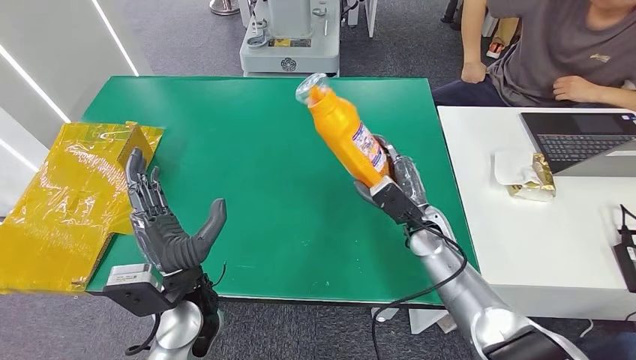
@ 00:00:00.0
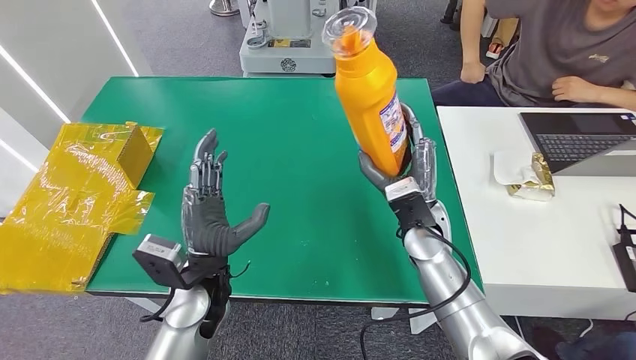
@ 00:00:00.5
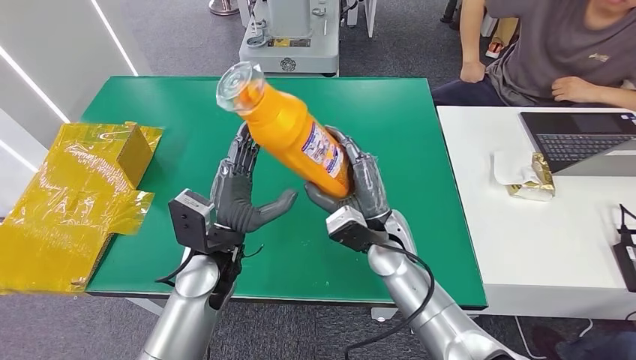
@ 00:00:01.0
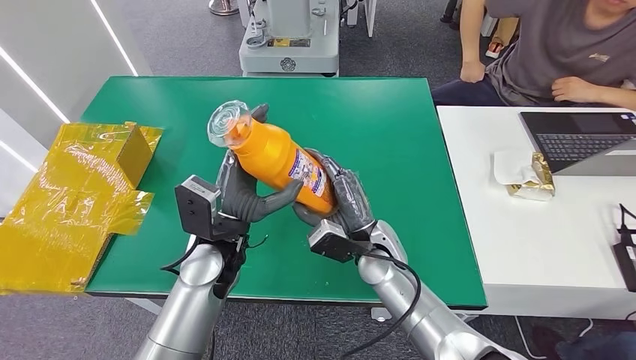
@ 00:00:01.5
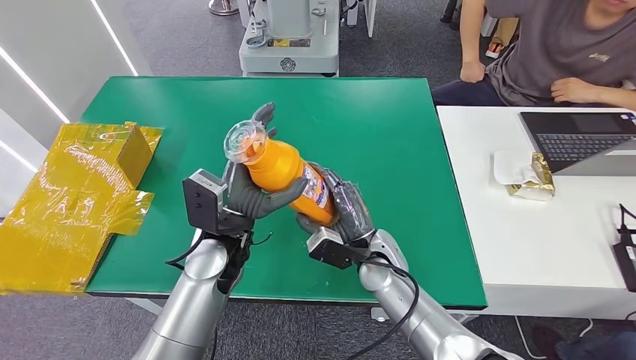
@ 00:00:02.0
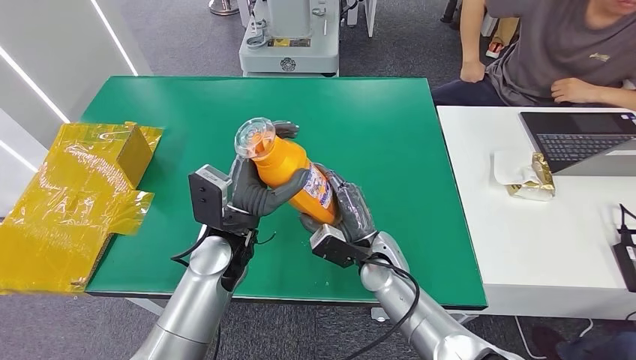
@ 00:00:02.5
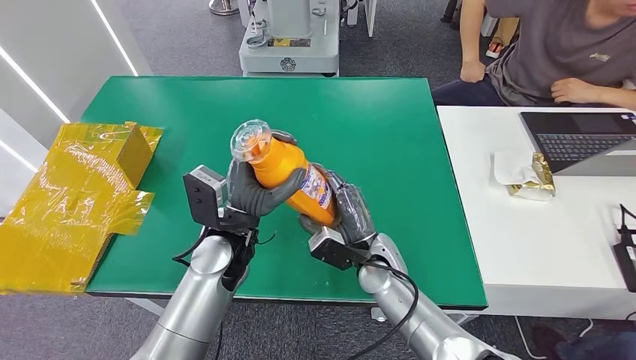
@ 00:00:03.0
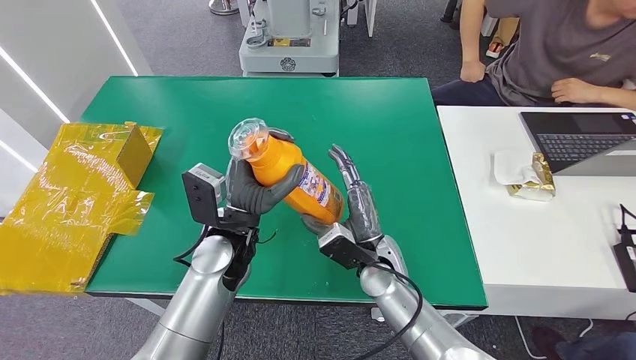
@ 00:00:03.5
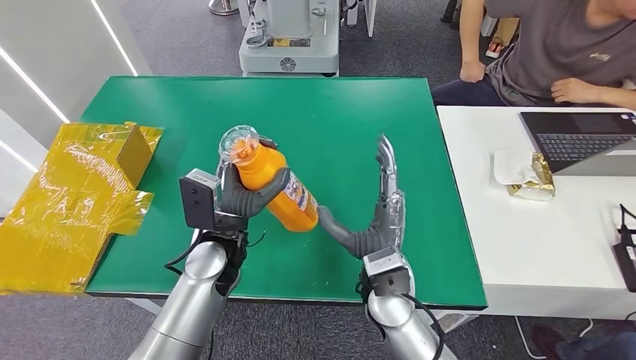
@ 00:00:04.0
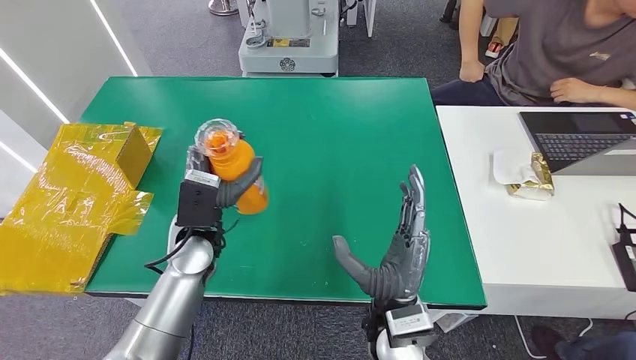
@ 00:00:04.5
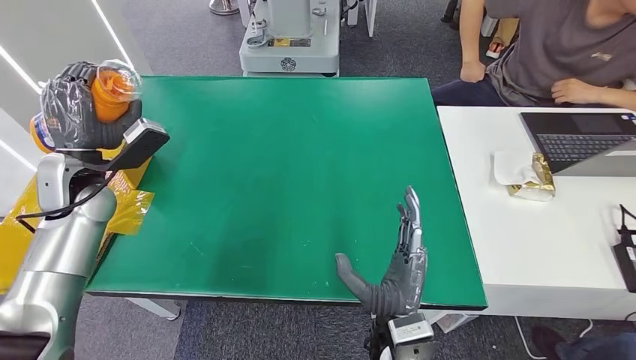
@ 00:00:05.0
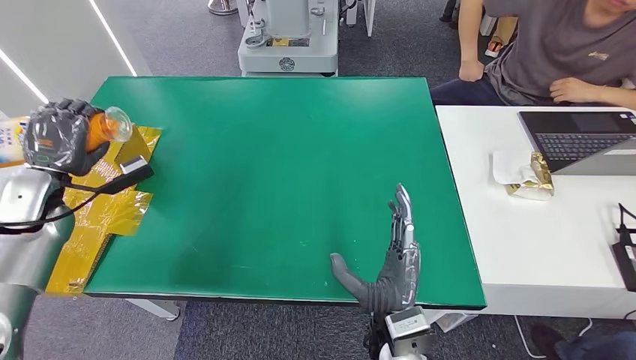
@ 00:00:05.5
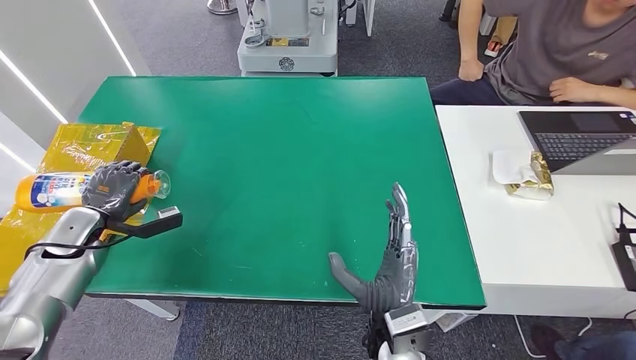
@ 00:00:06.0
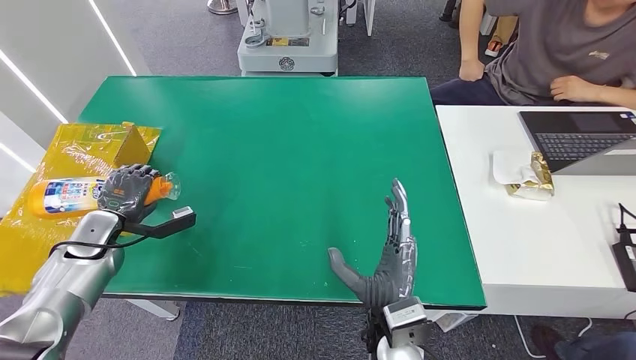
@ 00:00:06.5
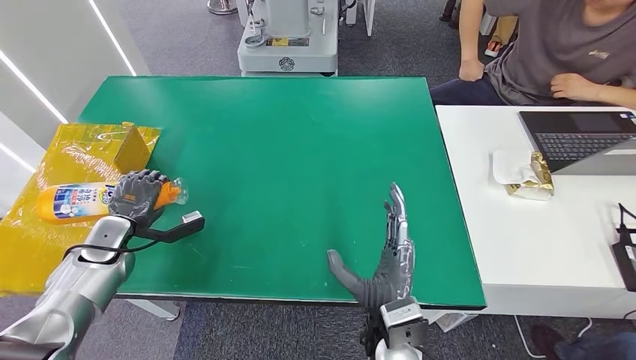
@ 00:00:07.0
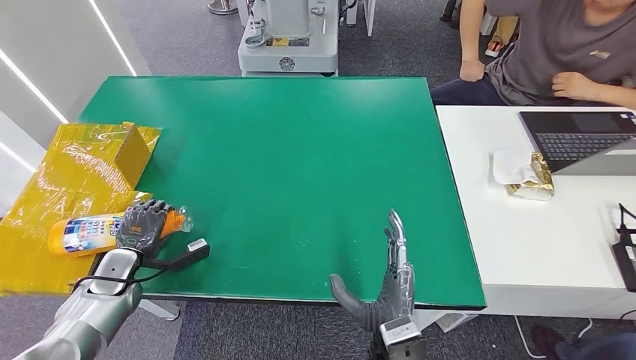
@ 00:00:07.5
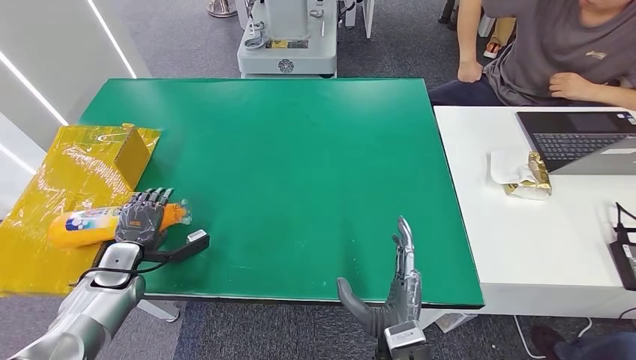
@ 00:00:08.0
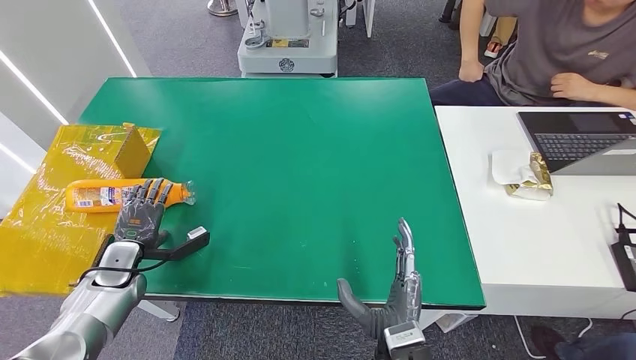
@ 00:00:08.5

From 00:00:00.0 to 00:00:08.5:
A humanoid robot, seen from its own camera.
Step, from 00:00:01.5 to 00:00:08.5: Turn the bottle to the front side.
From 00:00:02.0 to 00:00:04.0: The right hand travels backward by some 5 cm.
From 00:00:04.0 to 00:00:06.5: The right hand moves backward, some 5 cm. Meanwhile the left hand shifts roughly 30 cm to the left.
From 00:00:06.5 to 00:00:08.5: The right hand moves backward, roughly 5 cm, while the left hand heads downward, covering about 5 cm.

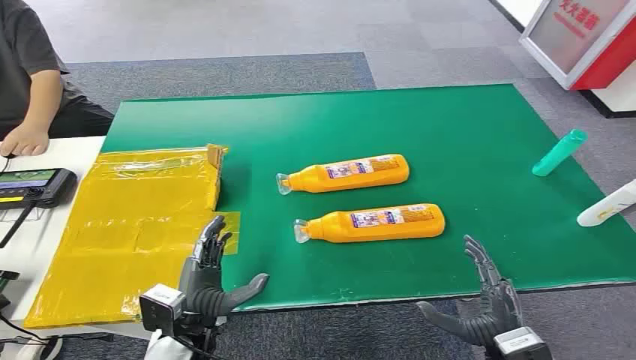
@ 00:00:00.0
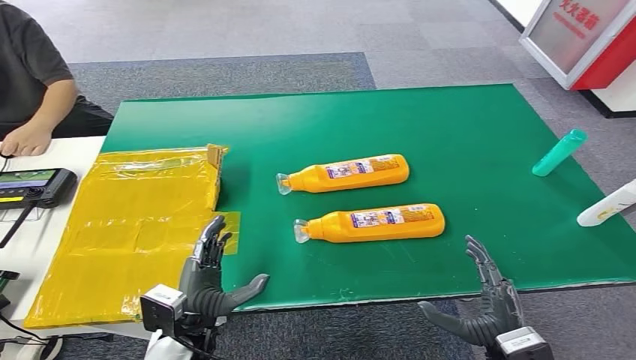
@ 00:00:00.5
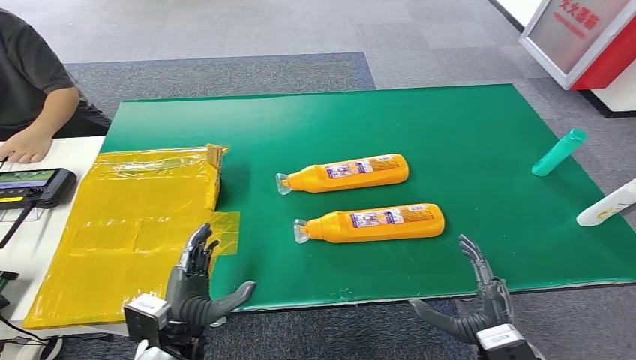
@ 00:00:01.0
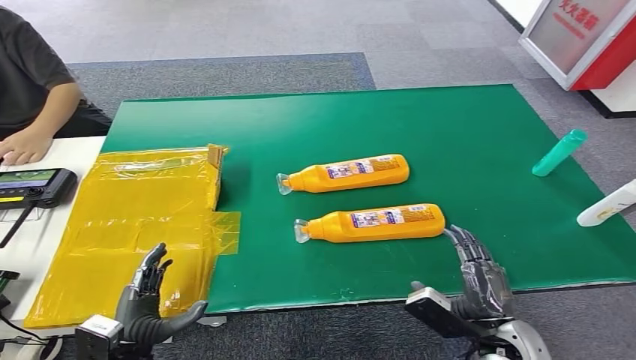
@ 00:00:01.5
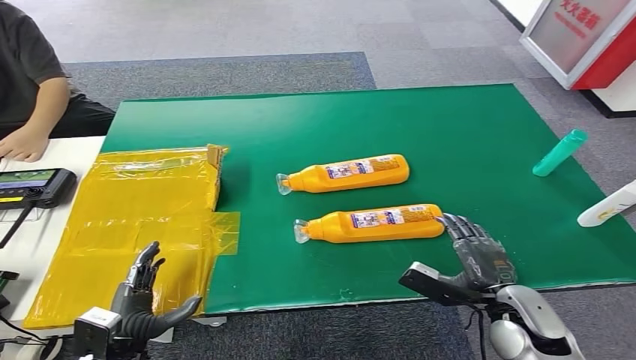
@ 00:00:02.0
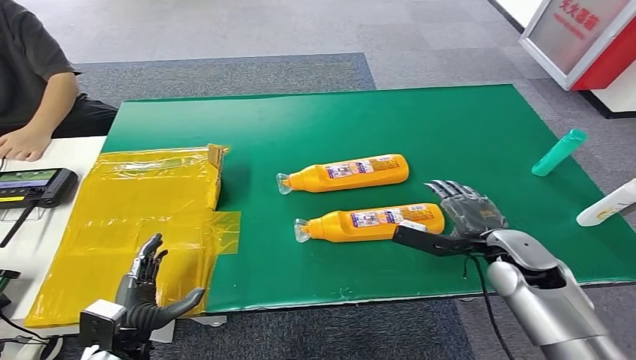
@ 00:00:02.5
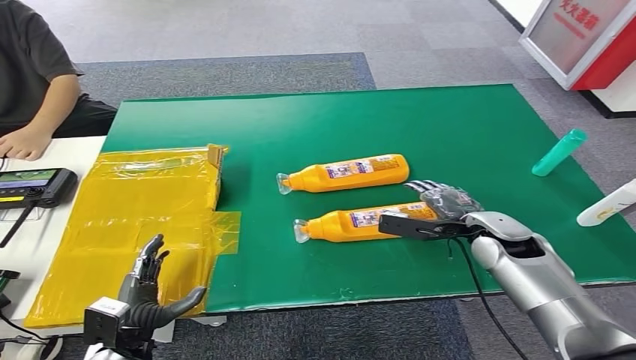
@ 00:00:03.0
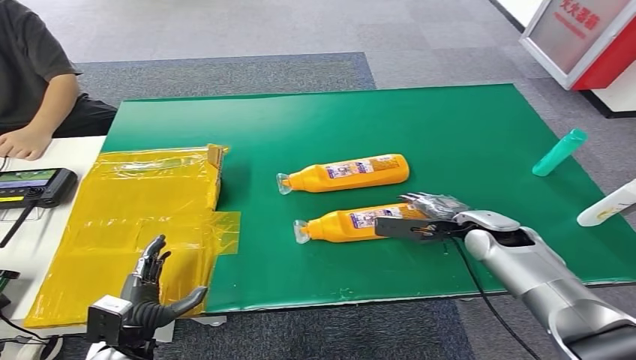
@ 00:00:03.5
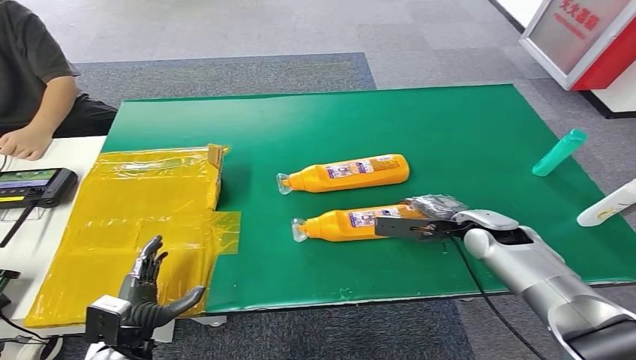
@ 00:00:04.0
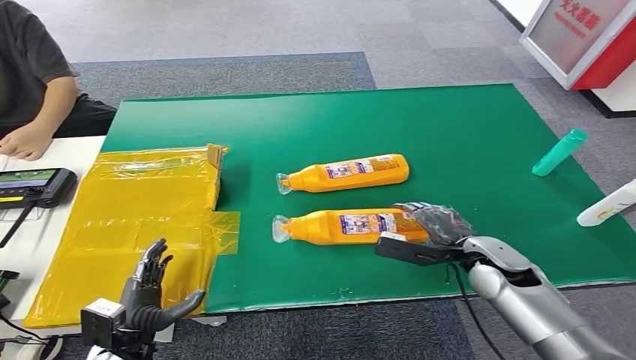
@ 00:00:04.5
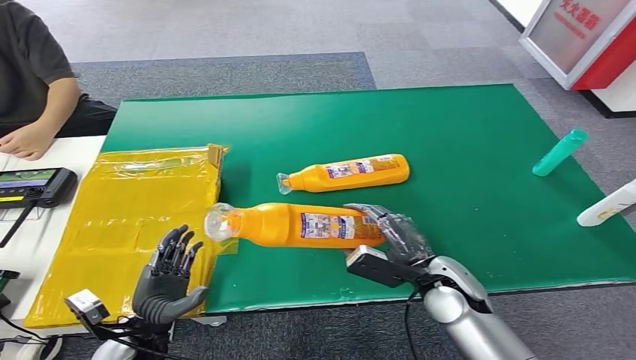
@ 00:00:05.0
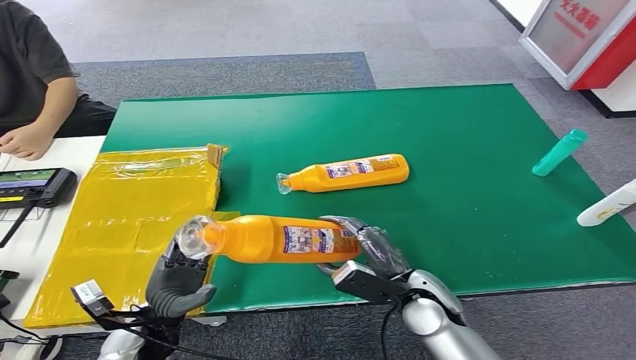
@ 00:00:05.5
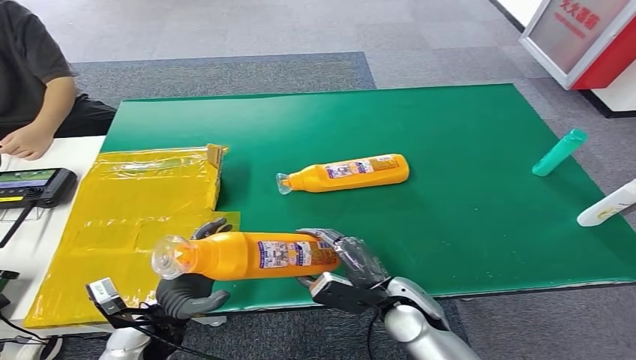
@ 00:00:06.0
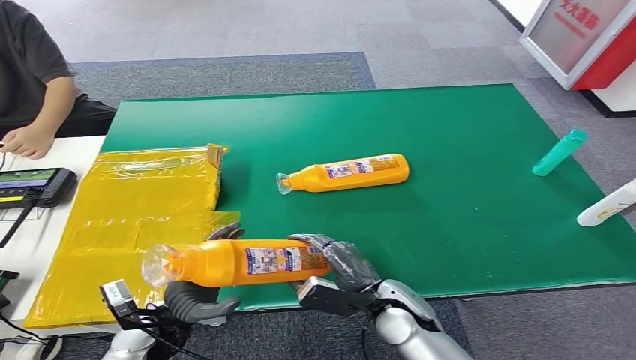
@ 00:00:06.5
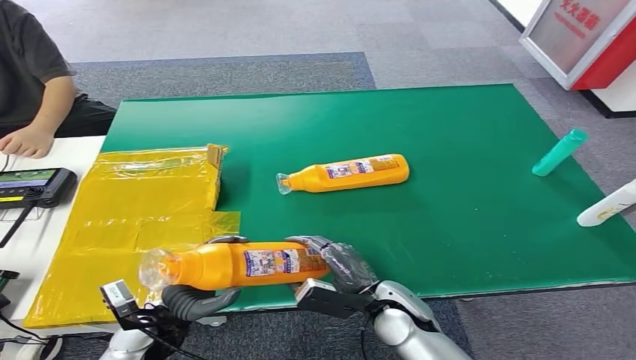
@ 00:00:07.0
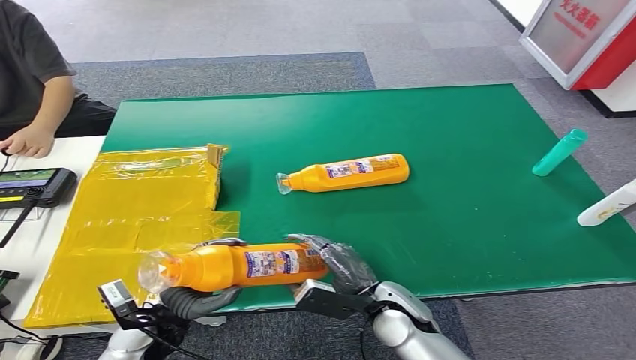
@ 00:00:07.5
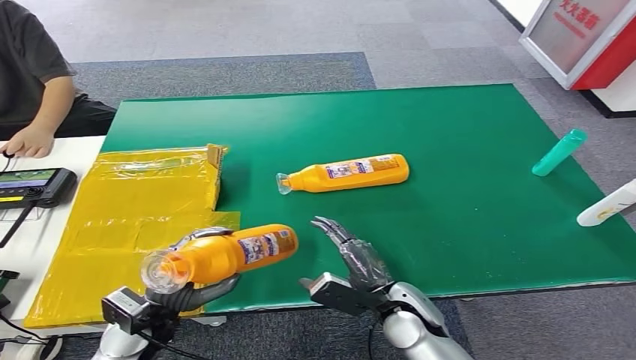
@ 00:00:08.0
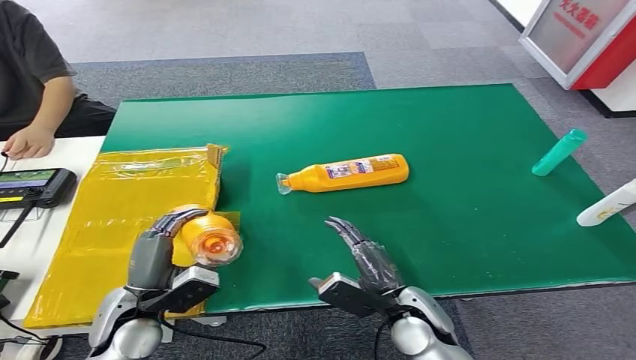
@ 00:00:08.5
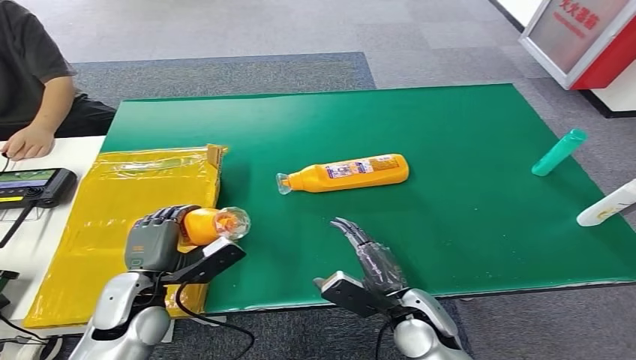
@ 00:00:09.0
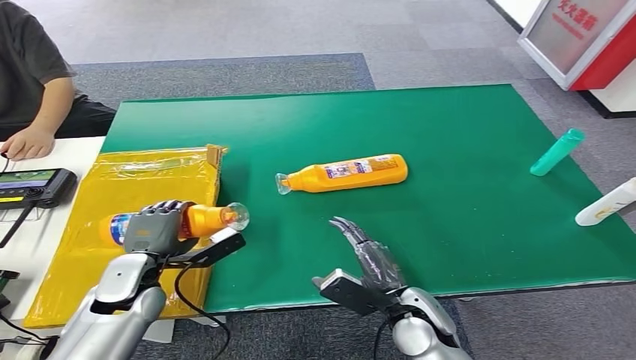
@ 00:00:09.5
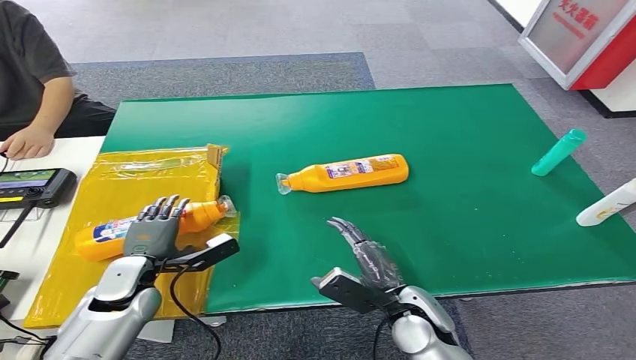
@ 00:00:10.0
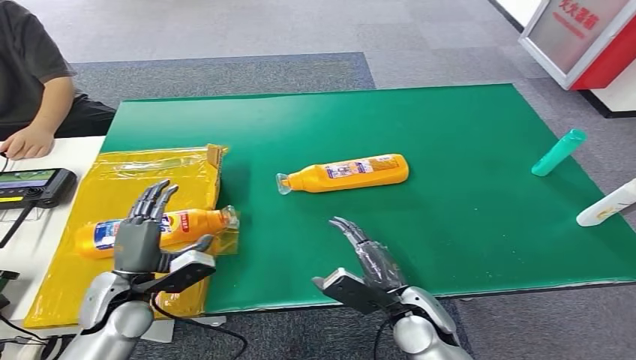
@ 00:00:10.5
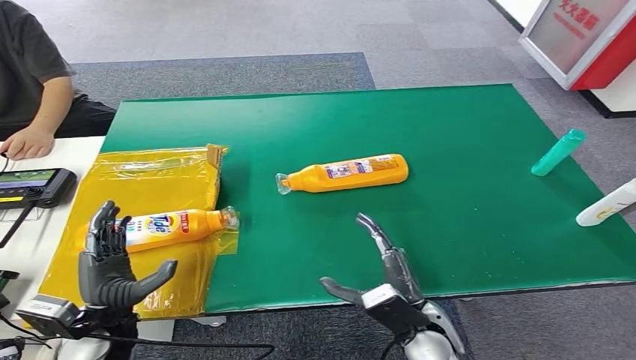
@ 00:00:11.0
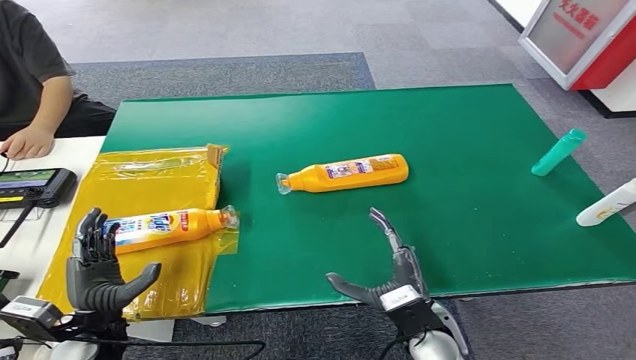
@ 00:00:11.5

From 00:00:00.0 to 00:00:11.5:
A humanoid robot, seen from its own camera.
Step, from 00:00:00.0 to 00:00:05.0: Pick up the bottle from the table.
Step, from 00:00:05.5 to 00:00:11.5: Turn the bottle to the front side.
From 00:00:02.0 to 00:00:04.0: The right hand goes about 15 cm forward.
From 00:00:04.0 to 00:00:06.0: The right hand moves to the left and backward, approximately 20 cm, while the left hand is displaced to the right by roughly 5 cm.
From 00:00:06.0 to 00:00:07.5: The hands make only small movements.
From 00:00:07.5 to 00:00:09.5: The left hand heads forward, covering approximately 5 cm.
From 00:00:09.5 to 00:00:11.5: The left hand travels backward by approximately 10 cm.
